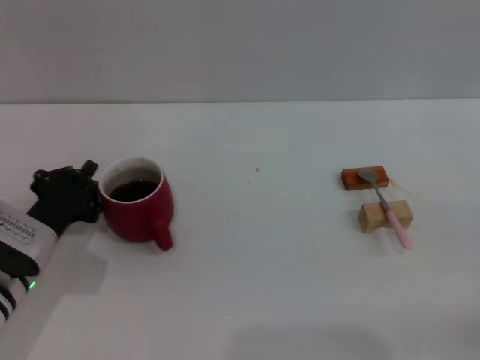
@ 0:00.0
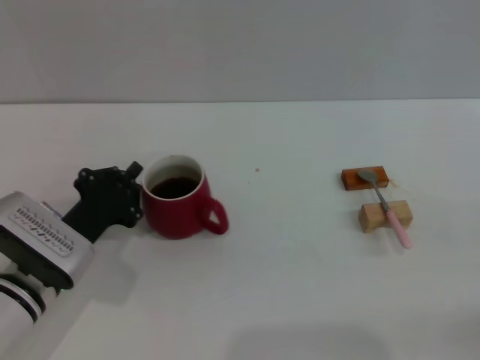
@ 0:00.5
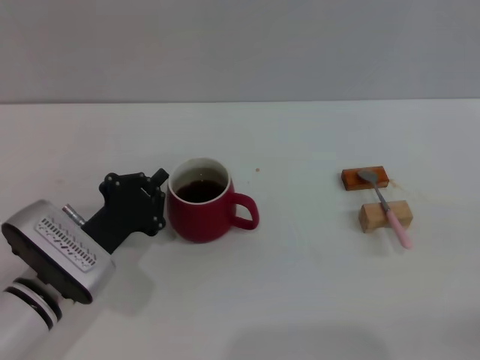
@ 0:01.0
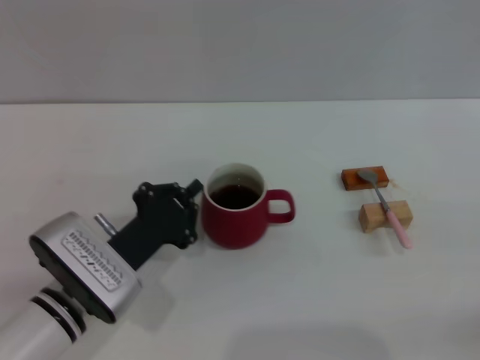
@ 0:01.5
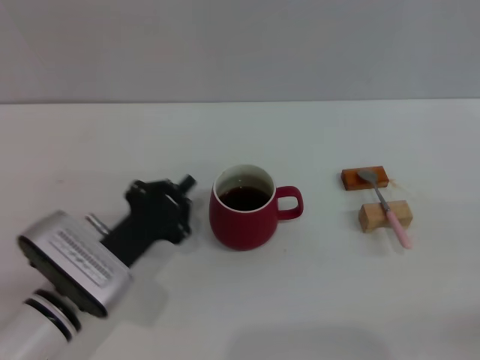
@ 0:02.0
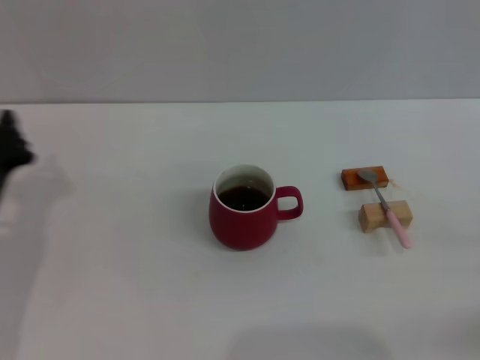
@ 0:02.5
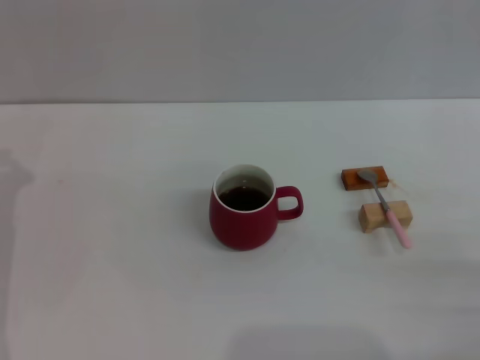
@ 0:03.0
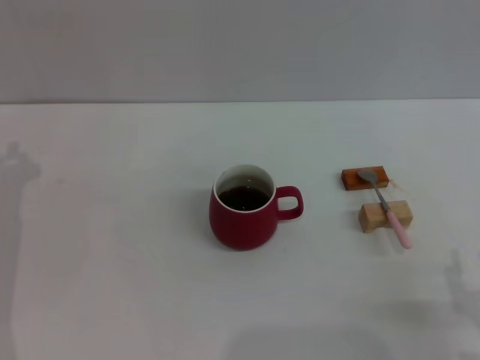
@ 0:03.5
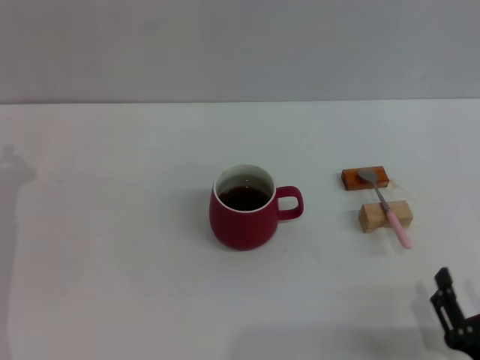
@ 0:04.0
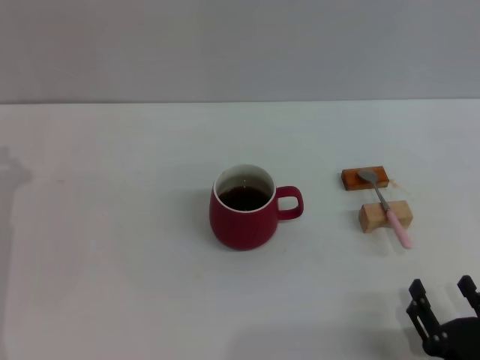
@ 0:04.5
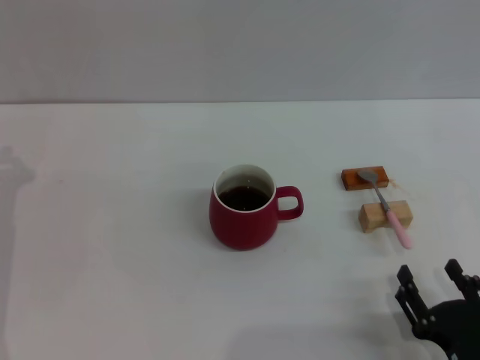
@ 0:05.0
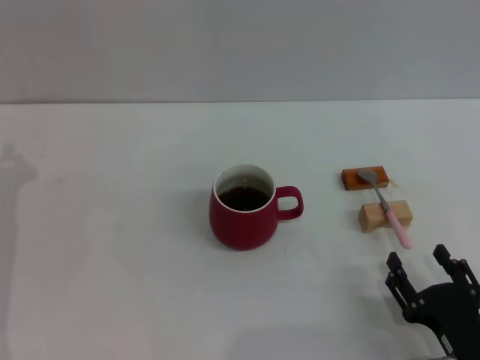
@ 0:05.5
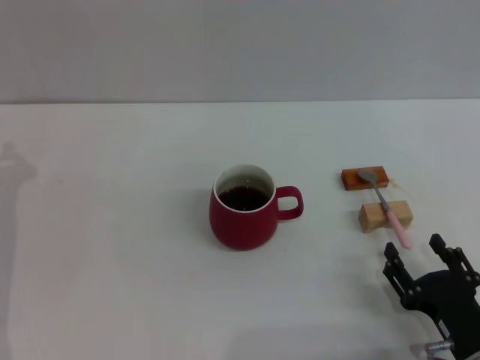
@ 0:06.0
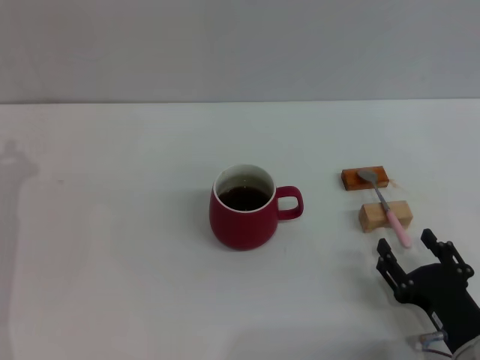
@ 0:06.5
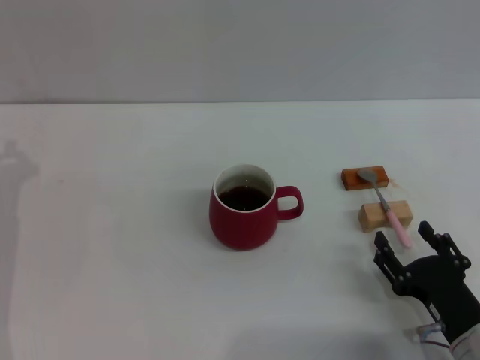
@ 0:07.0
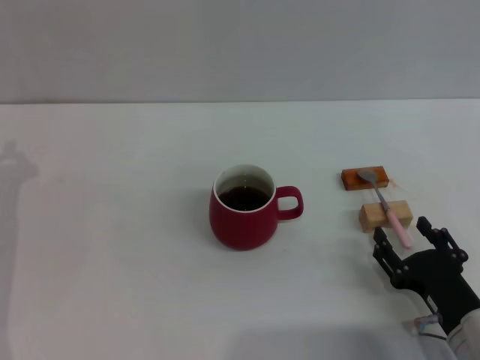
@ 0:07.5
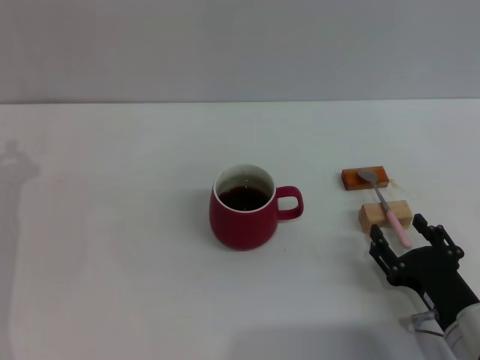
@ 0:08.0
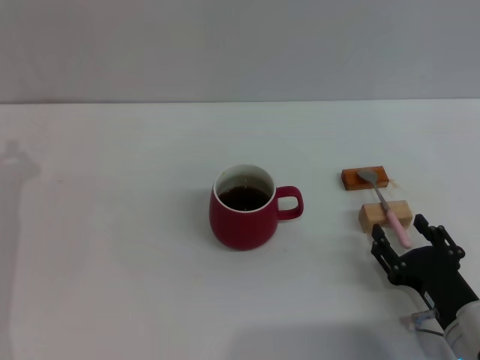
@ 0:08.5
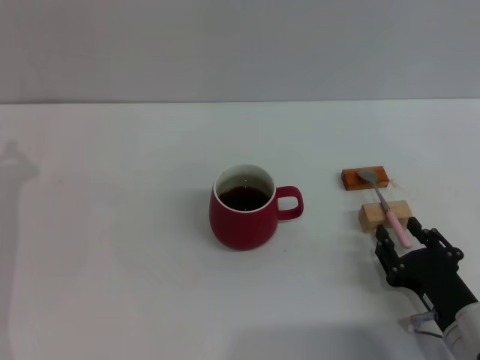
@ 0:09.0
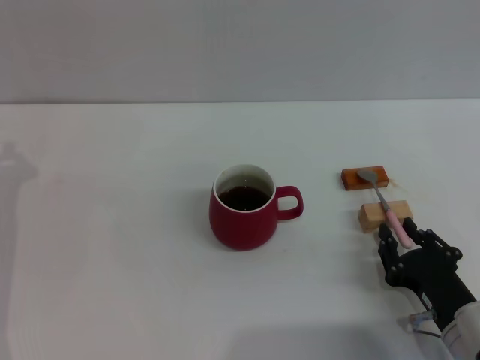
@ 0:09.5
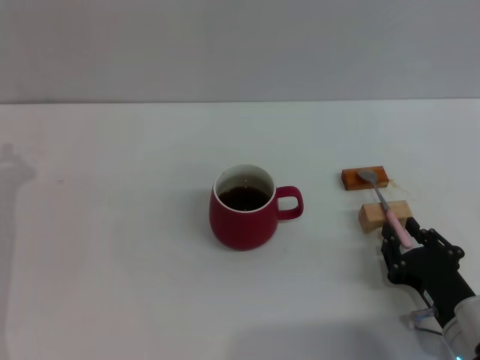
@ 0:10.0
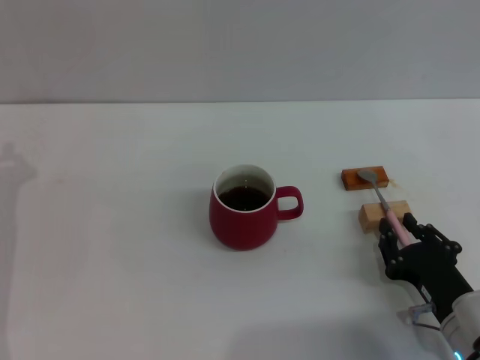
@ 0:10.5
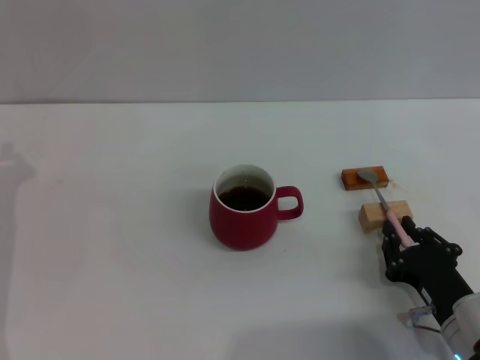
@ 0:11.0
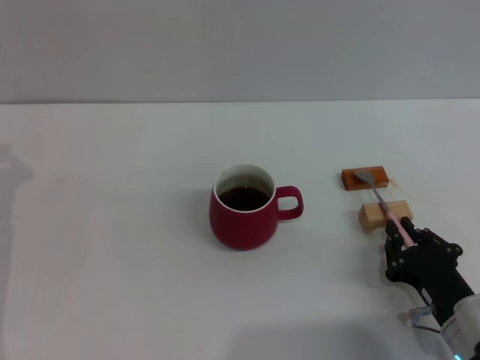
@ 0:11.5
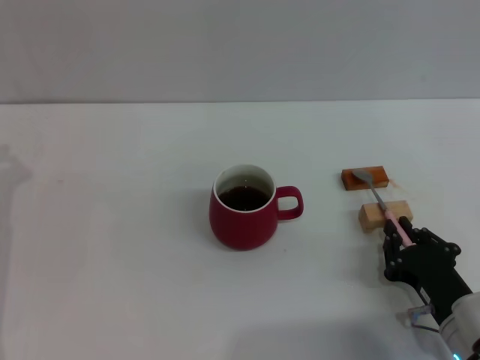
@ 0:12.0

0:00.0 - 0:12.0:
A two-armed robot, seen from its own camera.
Task of the whole recording: Move the red cup to the center, lift the pink spoon, stir it three times in the cup, and put the spoon into the cup.
Step, 0:00.0 - 0:02.0: Move the cup with coffee to the center of view with the left gripper.
0:00.0 - 0:02.0: The left gripper shifts roughly 5 cm to the right.
0:02.0 - 0:04.0: The right gripper moves to the left, backward and downward, some 20 cm, while the left gripper shifts about 15 cm to the left.
0:04.0 - 0:06.0: The right gripper is displaced forward by roughly 5 cm.
0:06.0 - 0:08.0: There are only small adjustments of the grippers.
0:08.0 - 0:10.0: The right gripper closes its fingers.
0:10.0 - 0:12.0: Both grippers stay put.

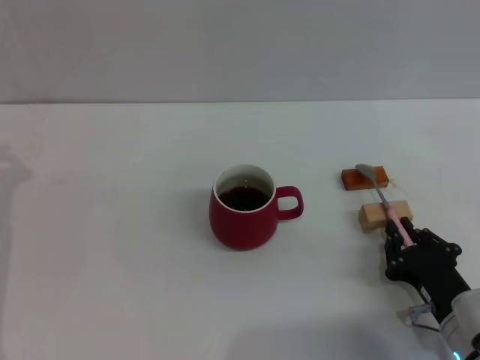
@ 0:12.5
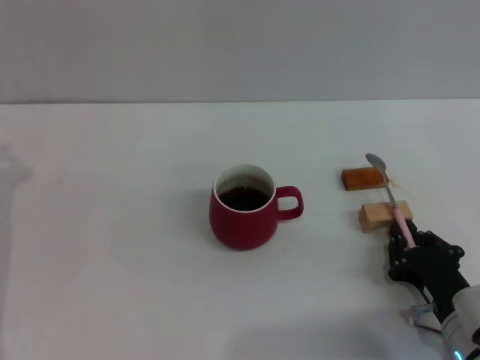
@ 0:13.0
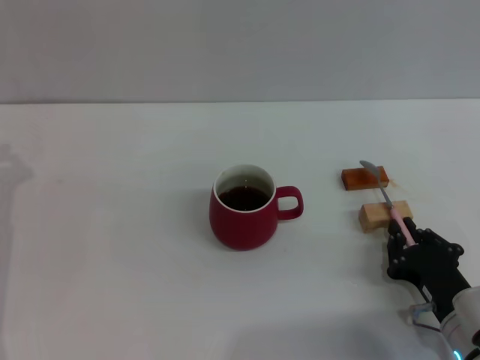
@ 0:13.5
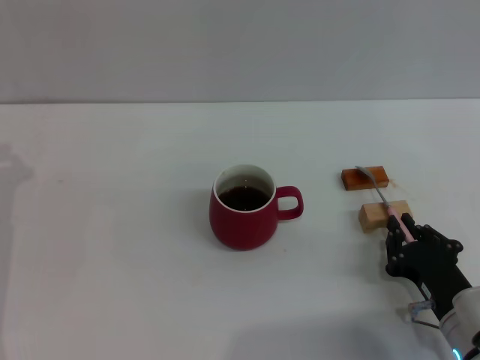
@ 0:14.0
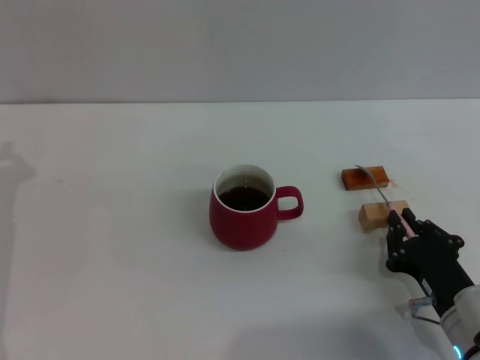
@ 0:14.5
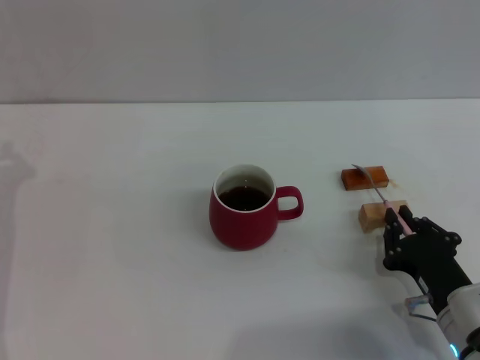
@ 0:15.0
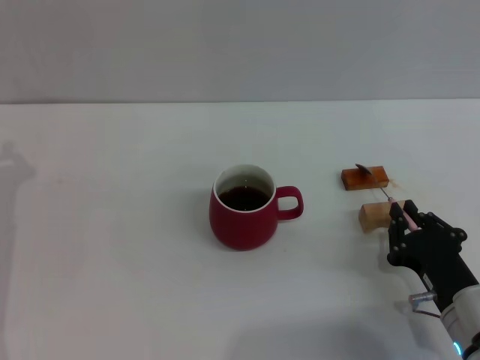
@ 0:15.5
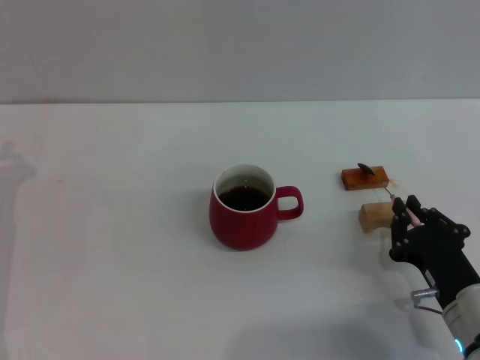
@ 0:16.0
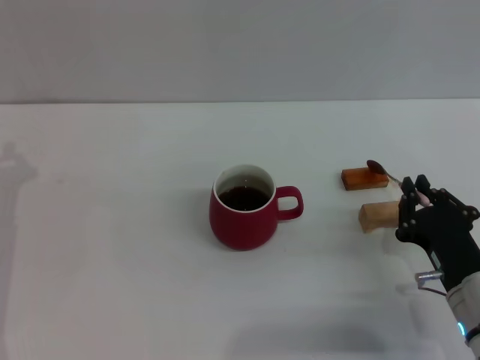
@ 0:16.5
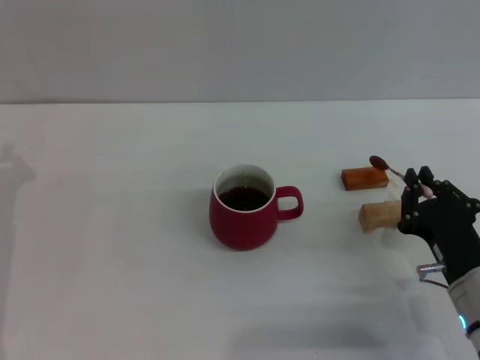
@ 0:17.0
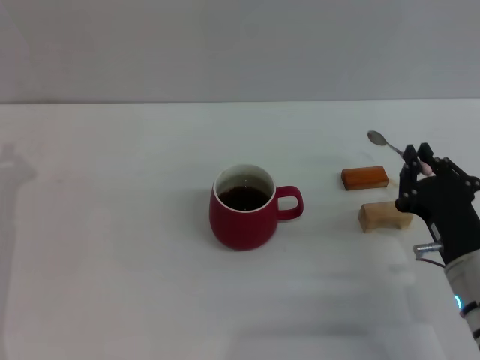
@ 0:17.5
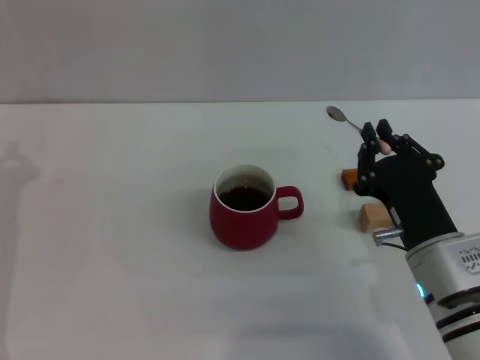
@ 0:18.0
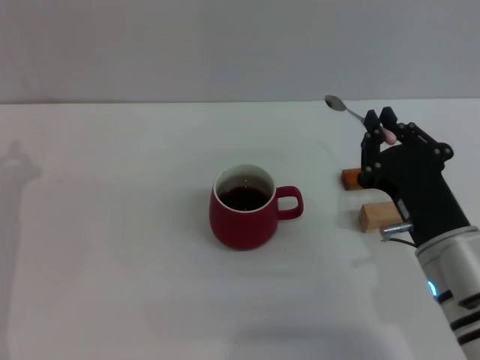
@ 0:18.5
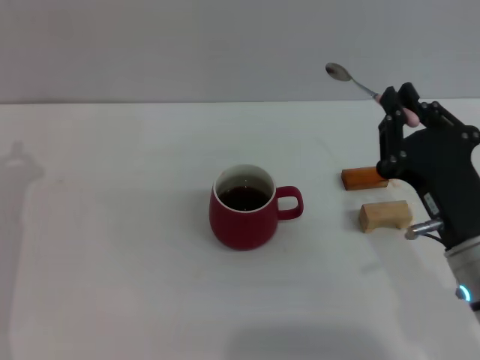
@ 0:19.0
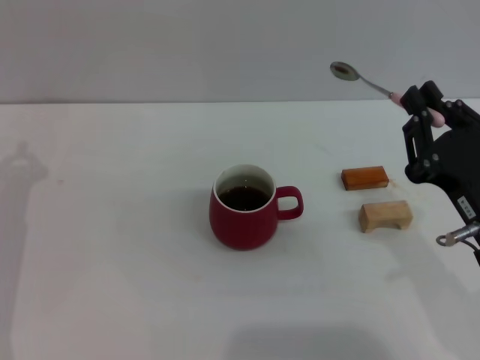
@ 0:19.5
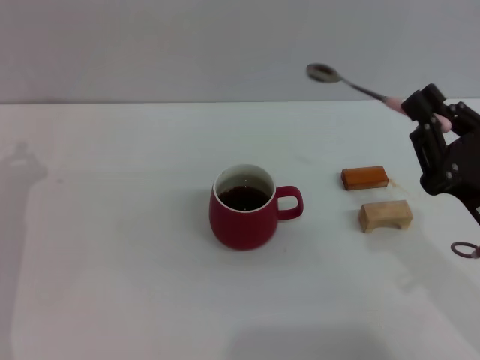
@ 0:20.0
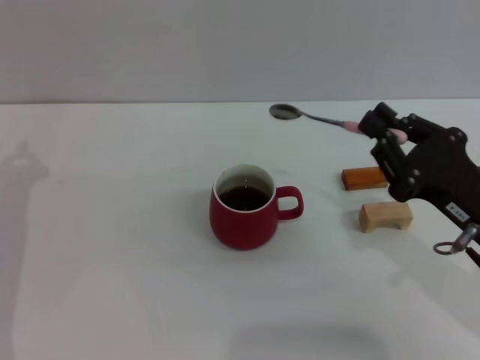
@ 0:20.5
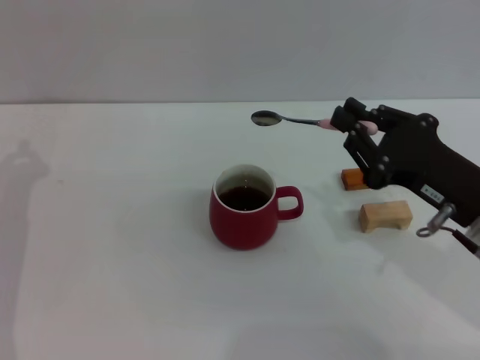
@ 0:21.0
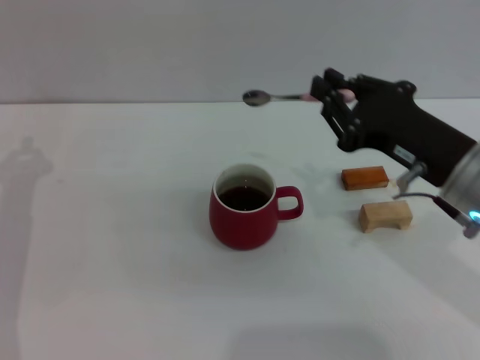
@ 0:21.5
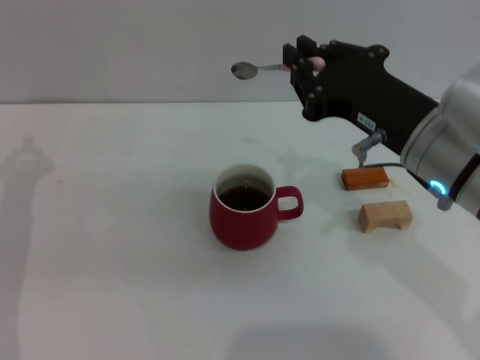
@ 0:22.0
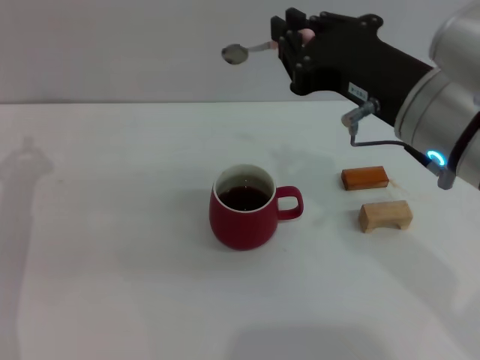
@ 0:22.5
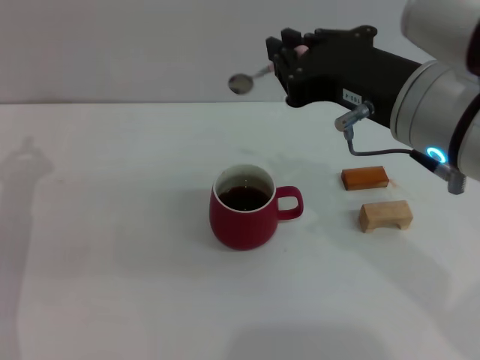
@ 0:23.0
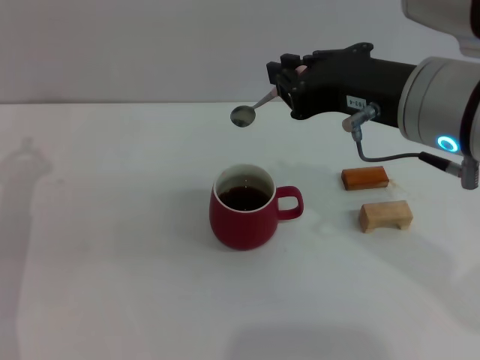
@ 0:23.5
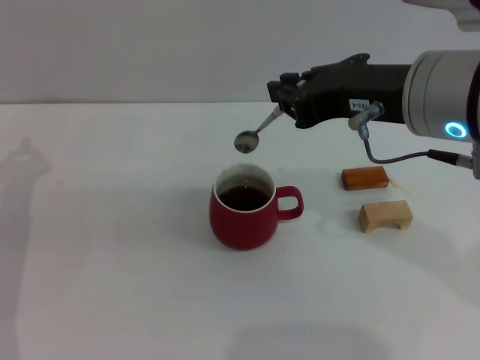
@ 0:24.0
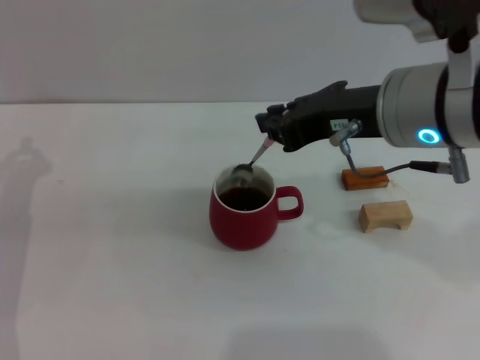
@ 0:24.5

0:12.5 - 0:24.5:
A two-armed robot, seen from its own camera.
Task of the whole recording: Move the red cup to the center, lift the pink spoon, stir it three times in the cup, and put the spoon into the cup.
Step, 0:12.5 - 0:18.0: Pick up the spoon with the right gripper.
0:12.5 - 0:14.5: The two grippers keep their place.
0:14.5 - 0:16.5: The grippers stay close to where they were, moving slightly.
0:16.5 - 0:18.5: The right gripper heads upward, covering roughly 5 cm.
0:18.5 - 0:20.5: The right gripper heads to the right, covering approximately 5 cm.
0:20.5 - 0:22.5: The right gripper moves upward and to the left, some 15 cm.

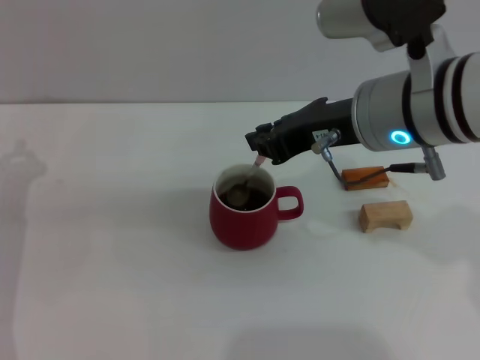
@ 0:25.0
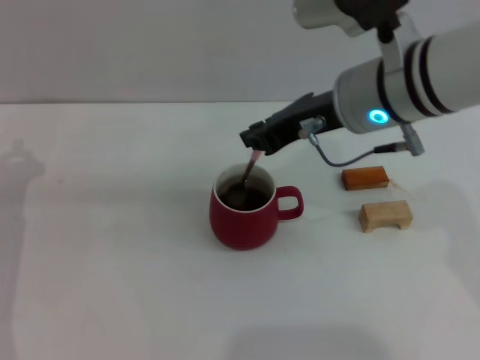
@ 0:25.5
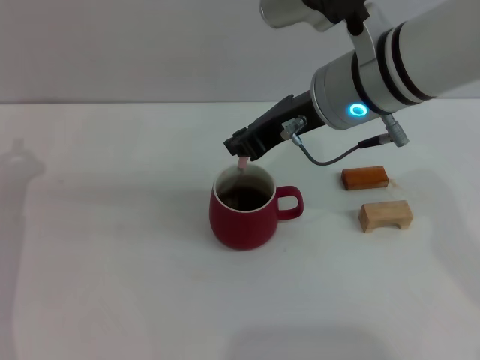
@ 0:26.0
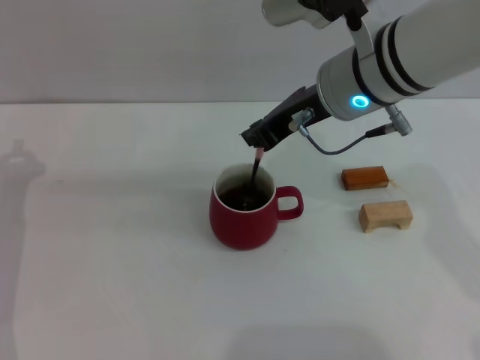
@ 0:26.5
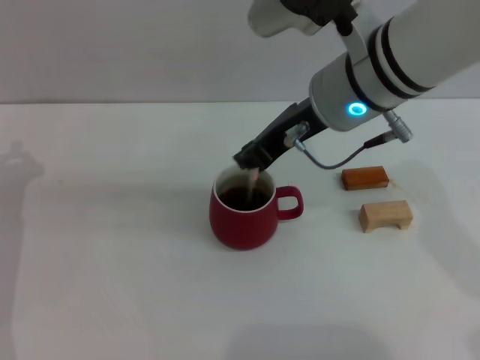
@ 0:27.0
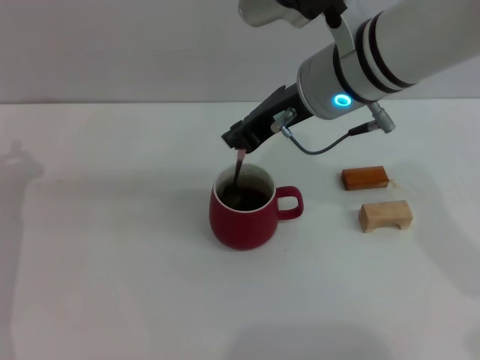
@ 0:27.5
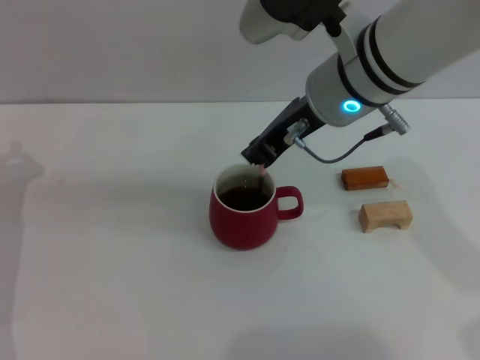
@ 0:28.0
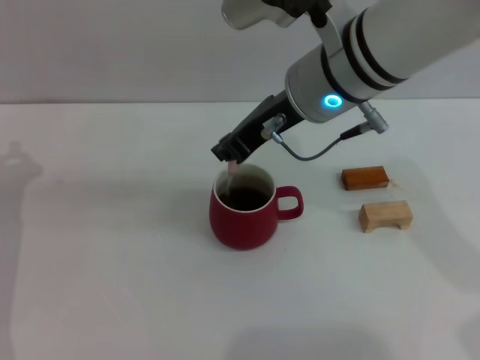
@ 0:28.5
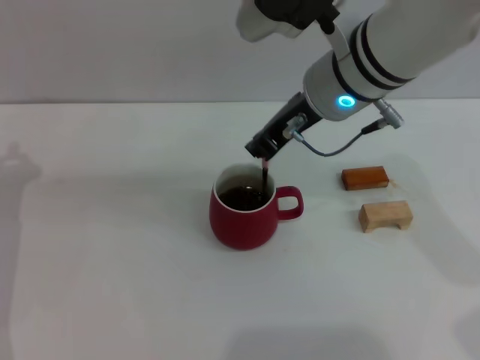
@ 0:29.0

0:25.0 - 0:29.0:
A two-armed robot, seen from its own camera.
Task of the whole recording: Move the red cup to the center, lift the pink spoon, stir it three times in the cup, and put the spoon into the cup.
0:25.0 - 0:27.0: The right gripper moves some 5 cm.
0:27.0 - 0:29.0: The grippers stay close to where they were, moving slightly.
